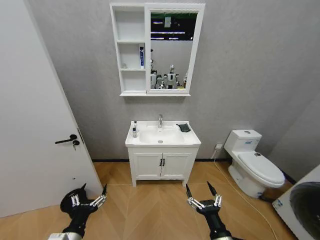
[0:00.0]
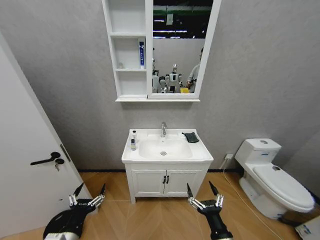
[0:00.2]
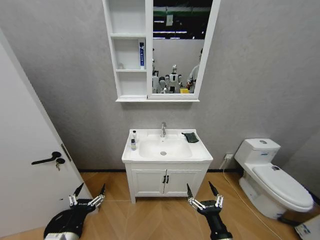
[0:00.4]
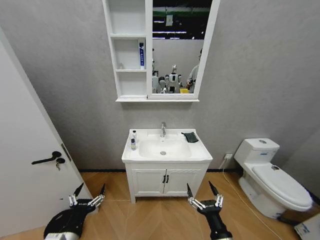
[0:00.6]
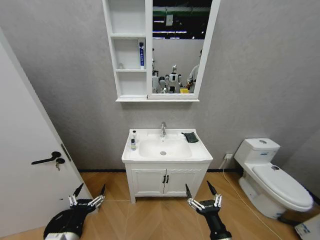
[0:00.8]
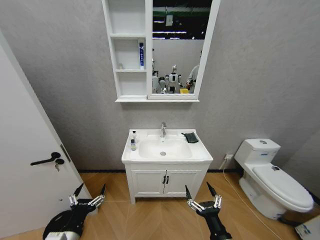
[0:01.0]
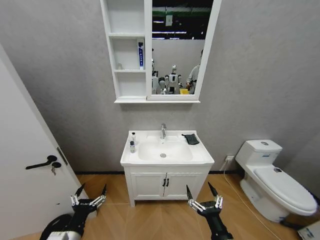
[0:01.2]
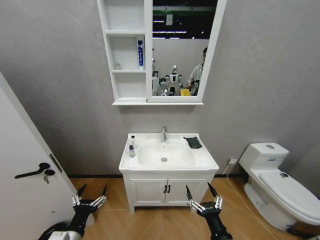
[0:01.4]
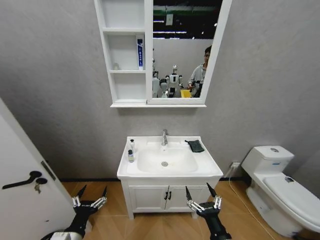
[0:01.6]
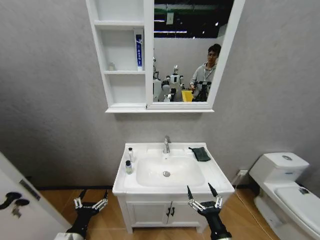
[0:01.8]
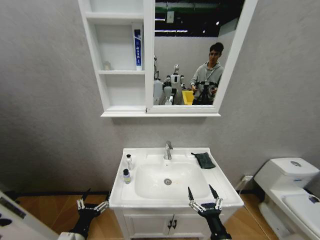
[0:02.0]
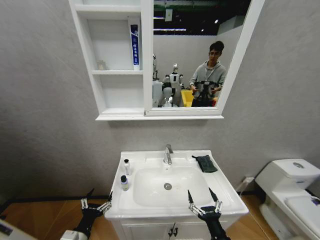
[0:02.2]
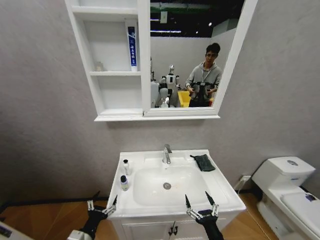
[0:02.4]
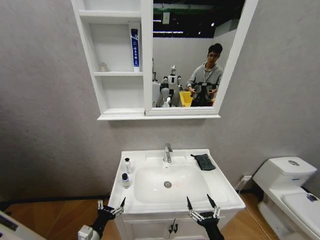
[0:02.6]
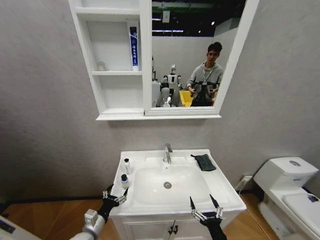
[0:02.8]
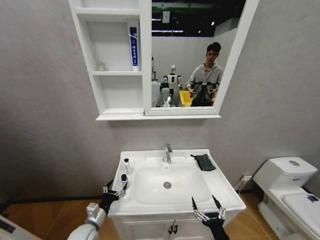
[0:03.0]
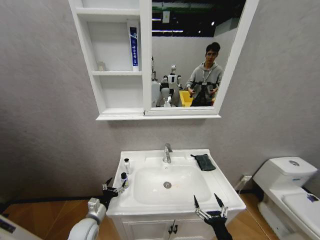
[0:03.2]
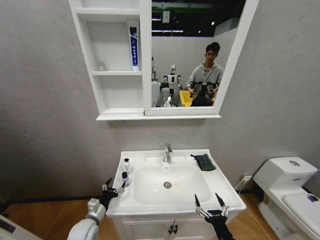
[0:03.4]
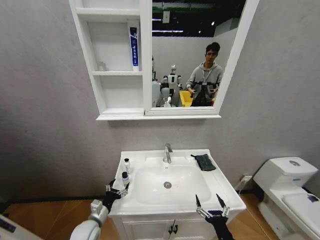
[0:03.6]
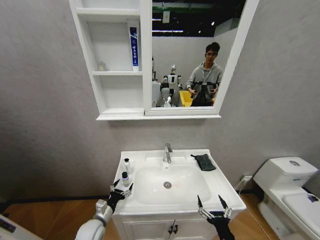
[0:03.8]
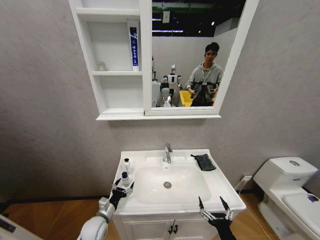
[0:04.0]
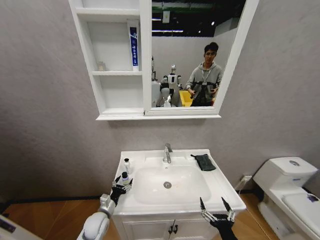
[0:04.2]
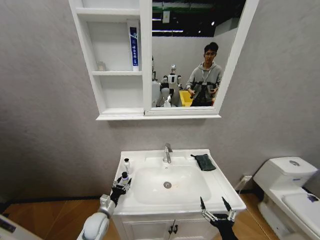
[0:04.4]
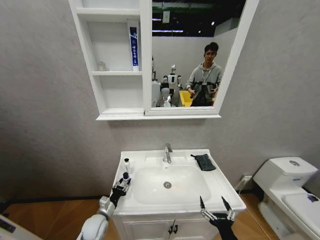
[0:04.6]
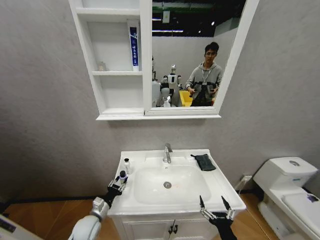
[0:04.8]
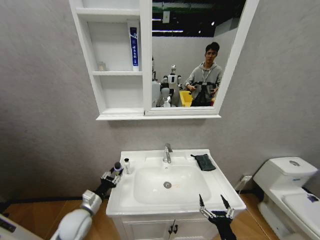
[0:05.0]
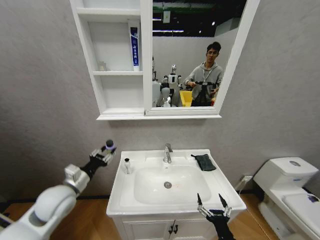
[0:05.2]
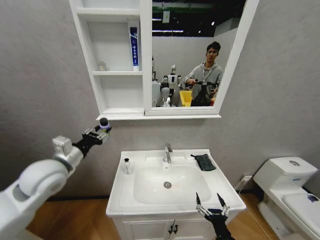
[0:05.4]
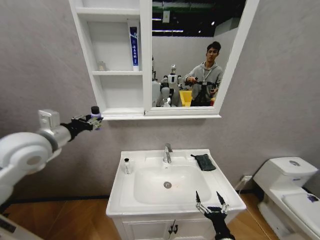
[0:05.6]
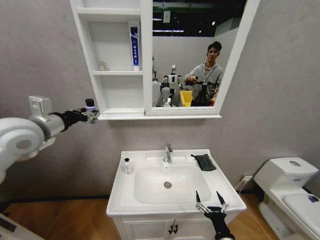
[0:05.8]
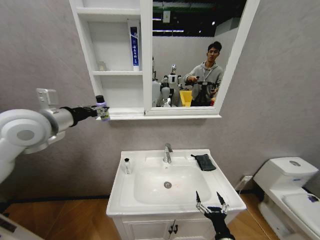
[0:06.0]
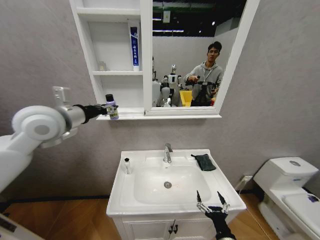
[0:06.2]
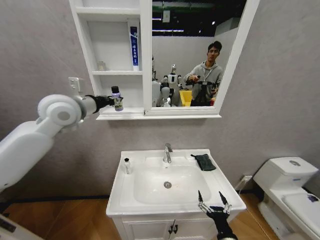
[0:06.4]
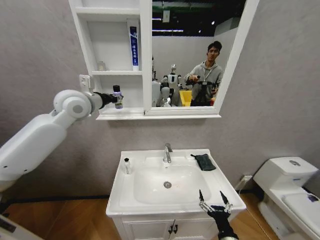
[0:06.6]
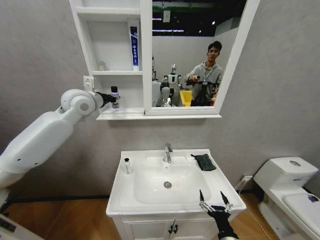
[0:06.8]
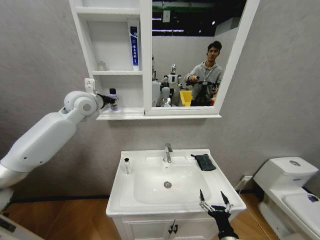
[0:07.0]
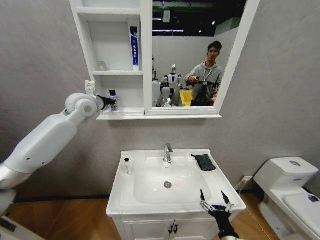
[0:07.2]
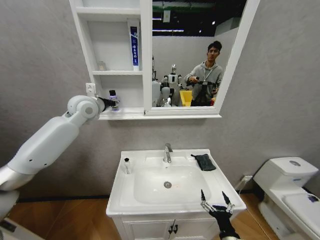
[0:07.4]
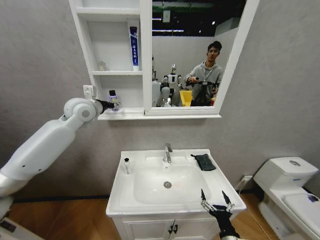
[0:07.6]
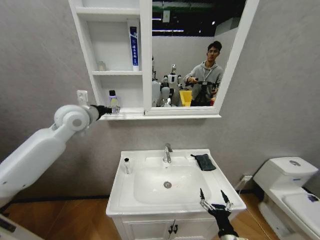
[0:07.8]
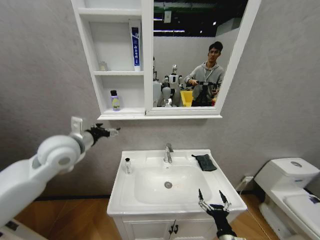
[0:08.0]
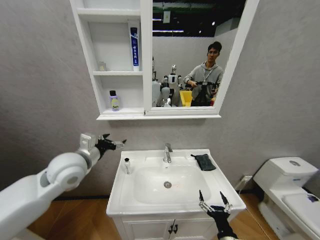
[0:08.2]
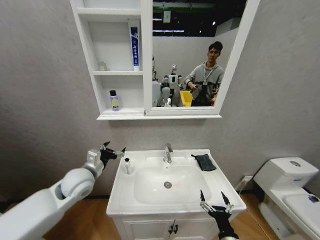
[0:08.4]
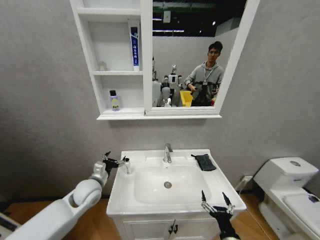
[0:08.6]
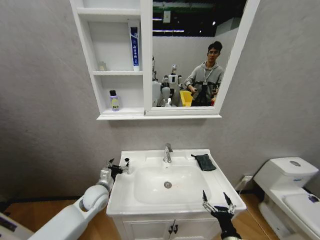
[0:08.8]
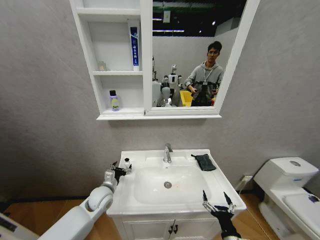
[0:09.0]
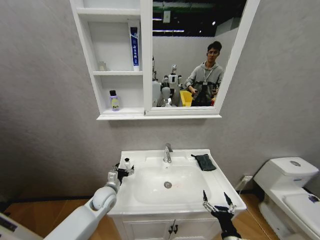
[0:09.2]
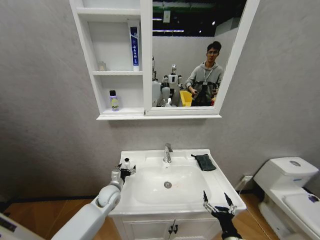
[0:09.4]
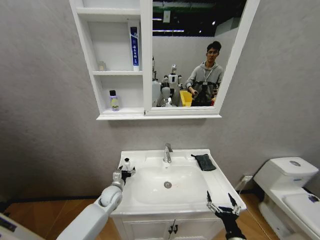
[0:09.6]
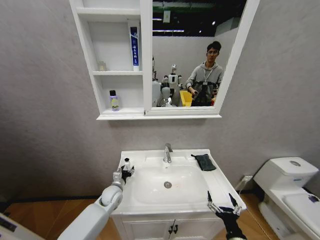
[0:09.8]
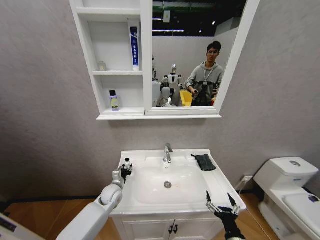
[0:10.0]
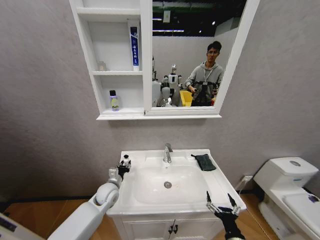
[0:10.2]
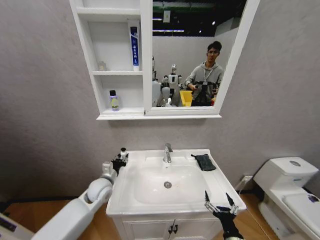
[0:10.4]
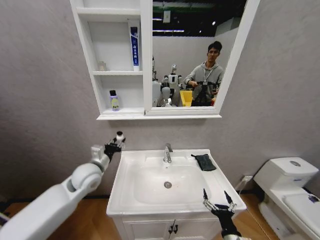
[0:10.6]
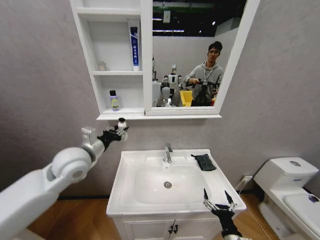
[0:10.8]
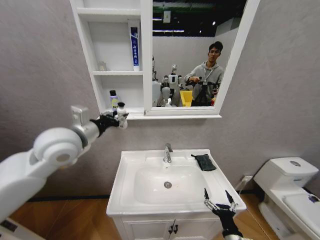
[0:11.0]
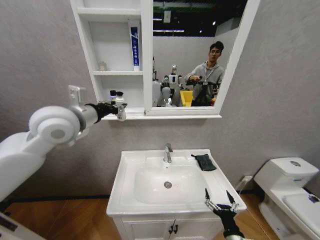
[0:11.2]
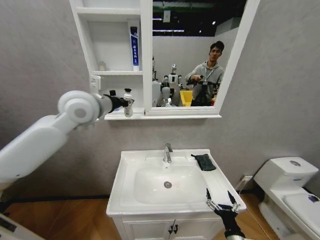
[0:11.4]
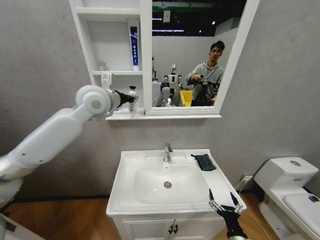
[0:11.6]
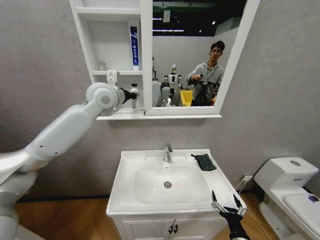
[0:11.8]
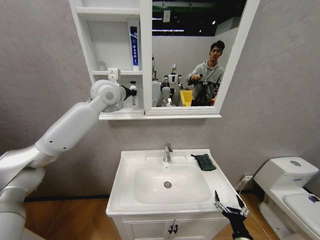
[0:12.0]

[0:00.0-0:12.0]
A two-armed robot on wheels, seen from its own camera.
Task of the whole recording: Move facial cleanser and shampoo from washbasin to cabinet, then wipe washbasin with towel.
0:01.6 to 0:03.0: The left gripper heads forward and downward, covering roughly 15 cm, while the right gripper changes place by roughly 5 cm.
0:03.0 to 0:04.4: The left gripper shifts roughly 5 cm forward, and closes.
0:04.4 to 0:06.0: The left gripper travels upward by some 50 cm, and closes up.
0:06.0 to 0:07.6: The left gripper travels forward and to the right by roughly 15 cm, and opens.
0:07.6 to 0:09.0: The left gripper heads downward and backward, covering approximately 40 cm, and opens.
0:09.0 to 0:10.4: The left gripper closes up.
0:10.4 to 0:12.0: The left gripper goes approximately 40 cm upward and forward.

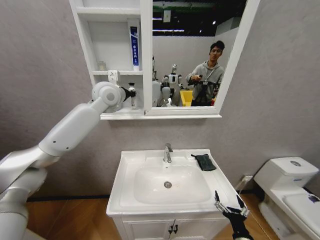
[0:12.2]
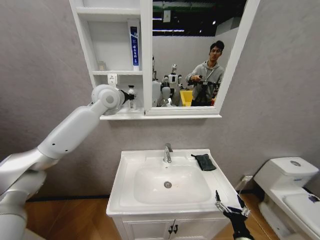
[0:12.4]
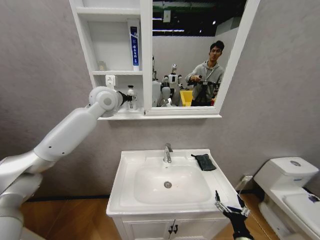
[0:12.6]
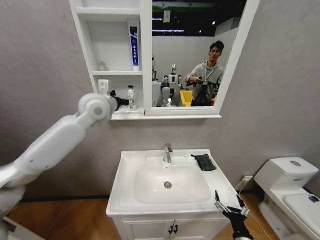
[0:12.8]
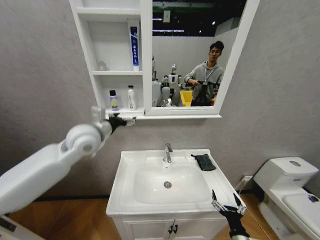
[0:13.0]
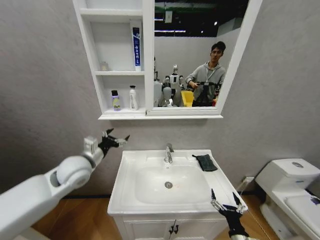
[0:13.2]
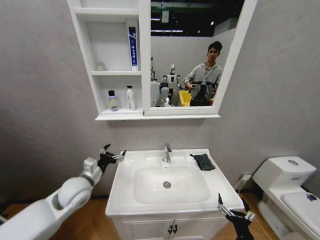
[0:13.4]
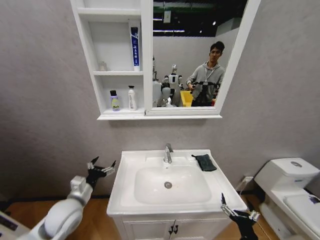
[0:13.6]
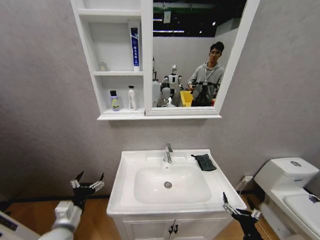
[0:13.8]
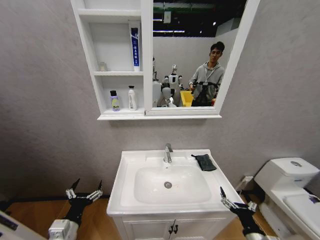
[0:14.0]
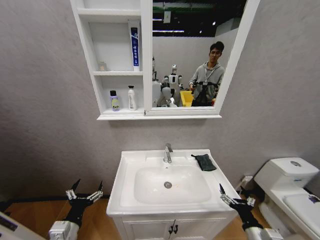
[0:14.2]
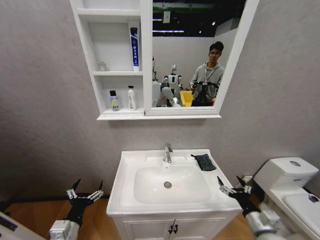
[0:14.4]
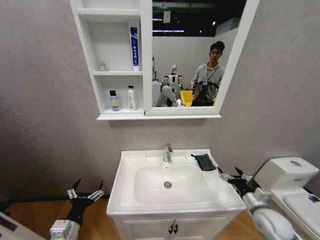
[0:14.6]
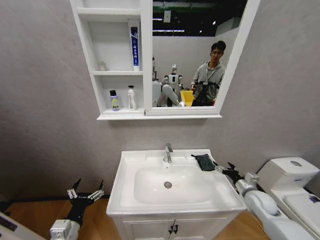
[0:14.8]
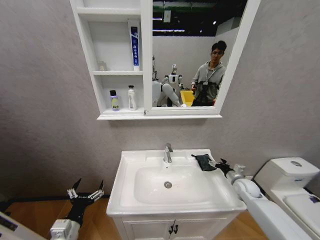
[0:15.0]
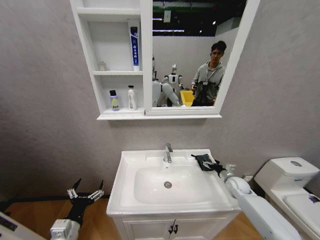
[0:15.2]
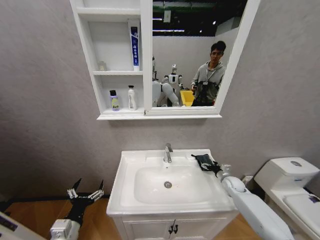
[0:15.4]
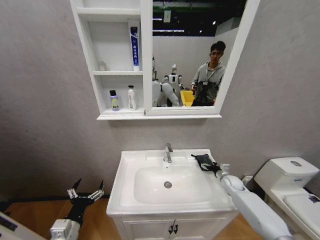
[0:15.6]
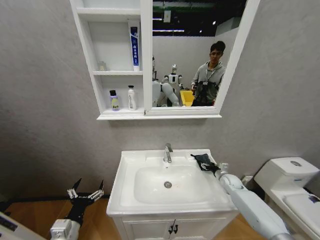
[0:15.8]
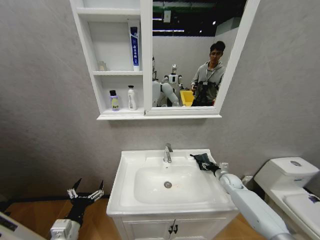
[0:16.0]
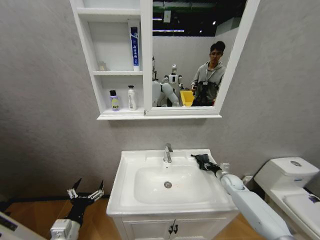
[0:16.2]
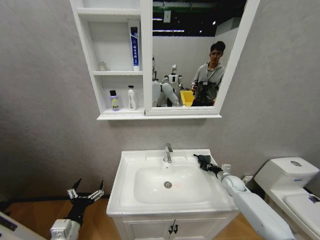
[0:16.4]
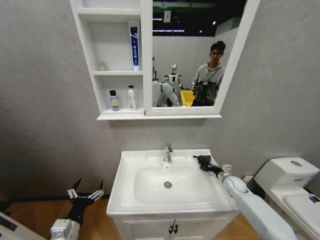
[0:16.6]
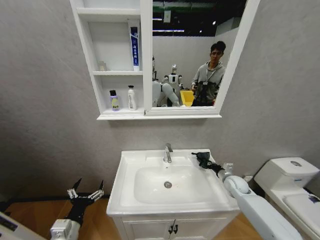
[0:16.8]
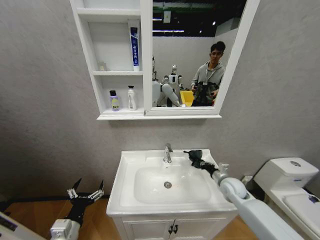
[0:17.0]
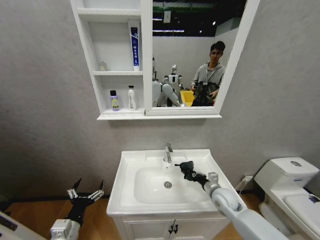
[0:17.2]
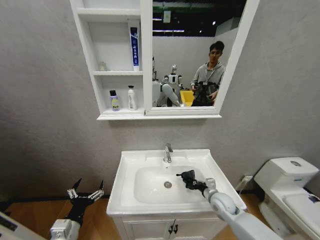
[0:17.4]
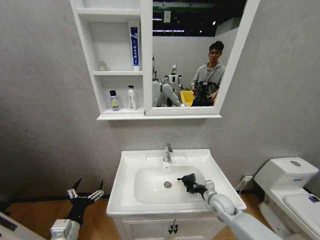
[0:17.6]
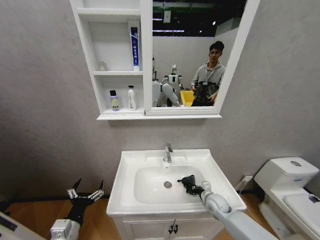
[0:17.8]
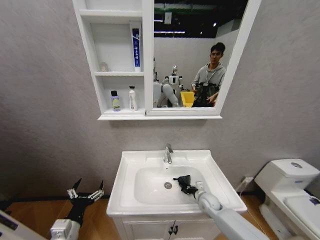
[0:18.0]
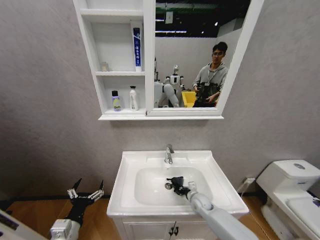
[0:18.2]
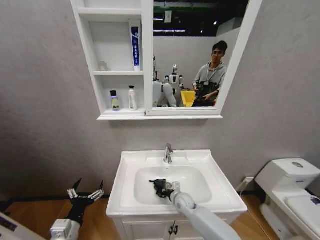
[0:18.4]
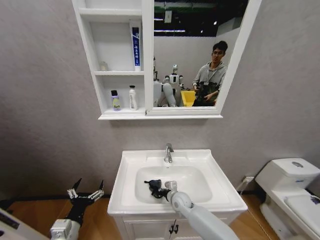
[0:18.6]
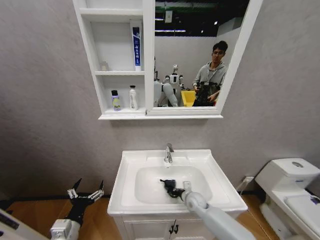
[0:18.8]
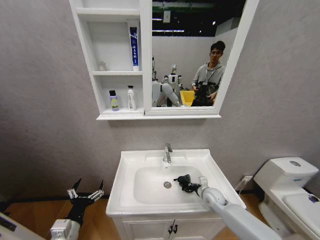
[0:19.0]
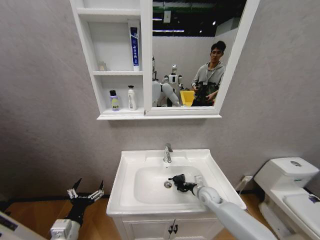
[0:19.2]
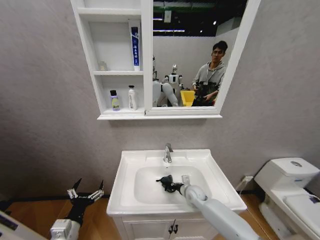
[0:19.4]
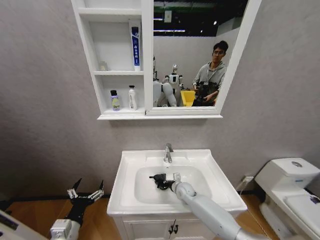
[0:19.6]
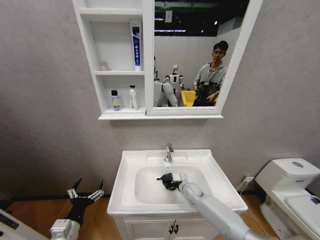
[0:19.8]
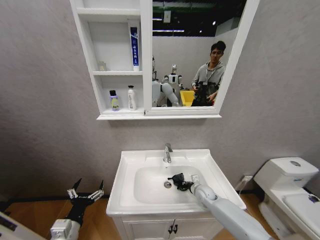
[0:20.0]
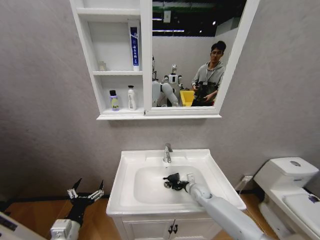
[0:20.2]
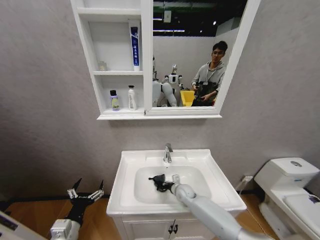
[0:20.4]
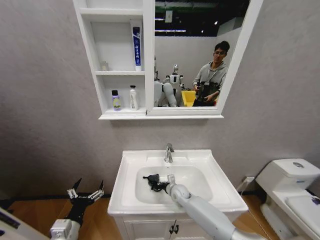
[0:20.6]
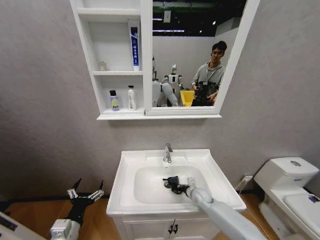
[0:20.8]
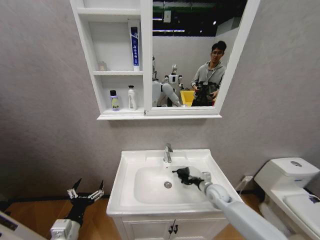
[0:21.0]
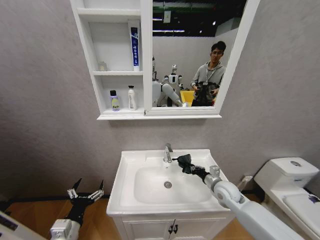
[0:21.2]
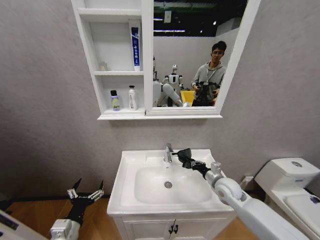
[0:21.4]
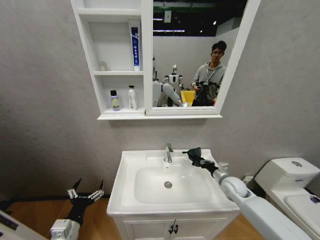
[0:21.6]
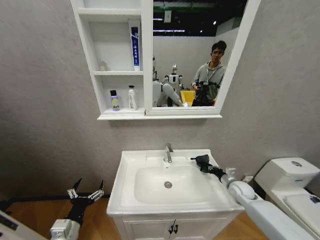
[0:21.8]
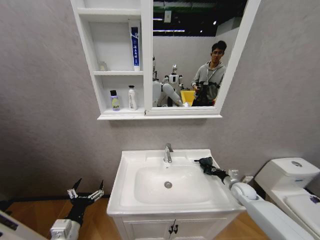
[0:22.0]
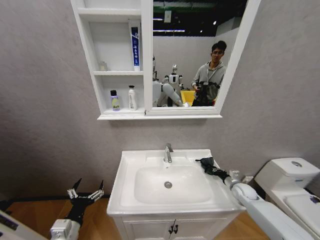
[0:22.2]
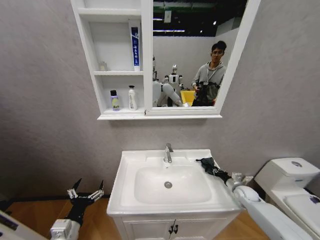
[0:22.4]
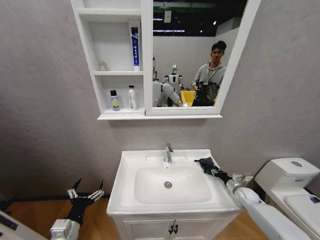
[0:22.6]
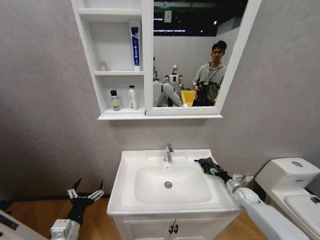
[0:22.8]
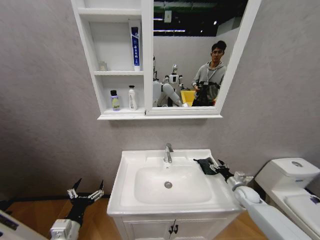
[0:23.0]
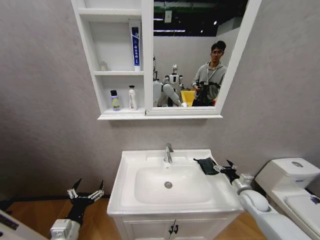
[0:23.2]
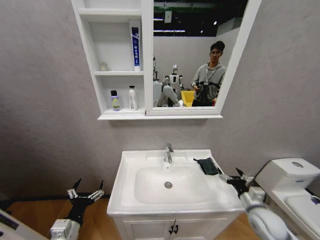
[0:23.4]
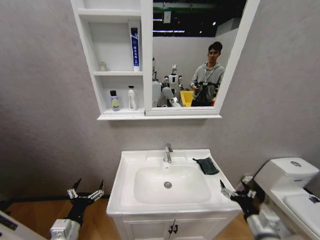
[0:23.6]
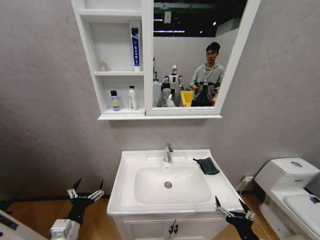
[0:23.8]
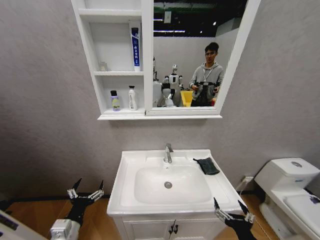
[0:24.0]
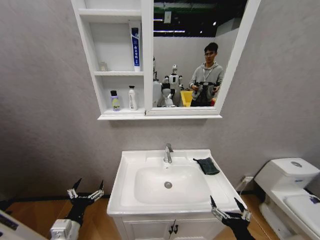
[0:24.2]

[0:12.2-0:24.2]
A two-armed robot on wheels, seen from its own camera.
Task of the whole recording: Move facial cleanser and shampoo from washbasin to cabinet, then wipe washbasin with towel.
0:12.2 to 0:13.8: The left gripper goes about 50 cm downward and backward, and opens up.
0:13.8 to 0:15.2: The right gripper heads forward, covering approximately 30 cm.
0:15.2 to 0:16.6: The right gripper closes its fingers.
0:16.6 to 0:18.2: The right gripper is displaced to the left by some 20 cm.
0:18.2 to 0:19.8: The right gripper swings left and right, some 15 cm each way, with 3 reversals.
0:19.8 to 0:21.2: The right gripper moves left and right over roughly 15 cm, changing direction 2 times.
0:21.2 to 0:22.6: The right gripper heads to the right and downward, covering about 20 cm.
0:22.6 to 0:24.2: The right gripper moves backward, to the left and upward, some 40 cm, and opens up.
